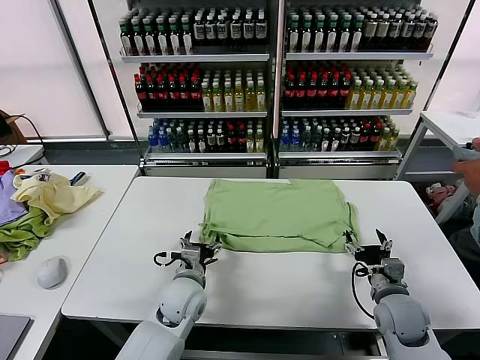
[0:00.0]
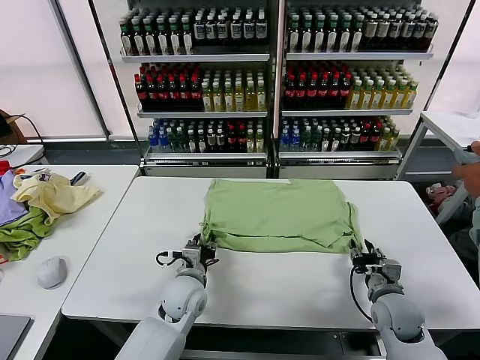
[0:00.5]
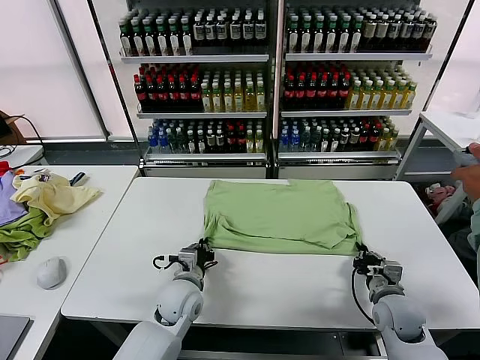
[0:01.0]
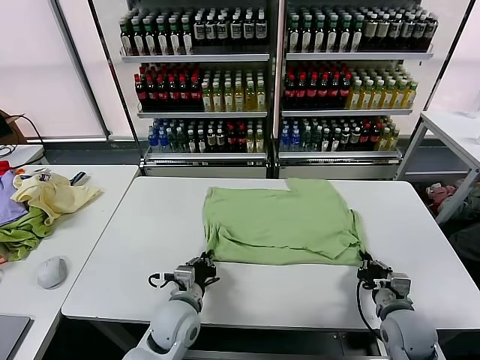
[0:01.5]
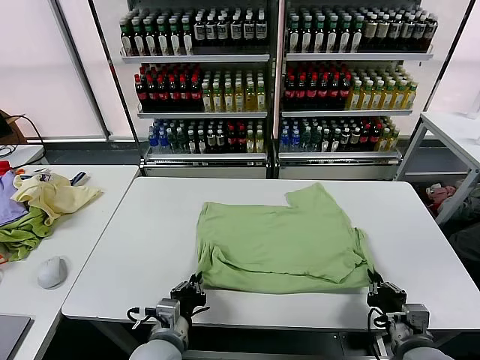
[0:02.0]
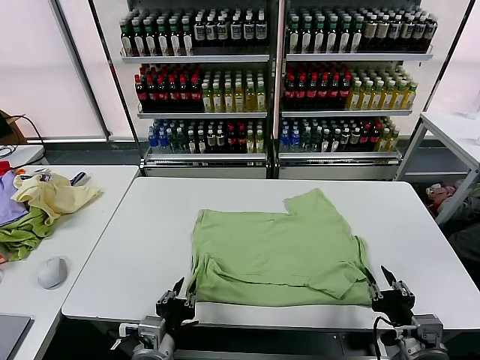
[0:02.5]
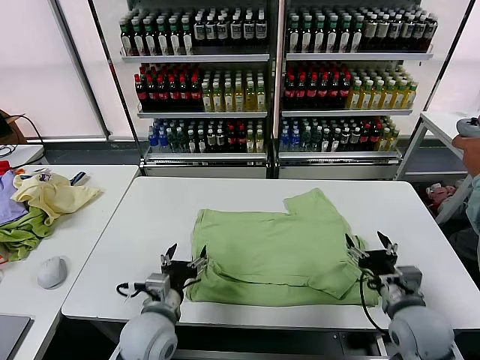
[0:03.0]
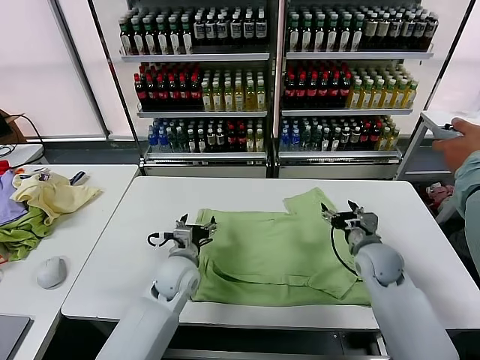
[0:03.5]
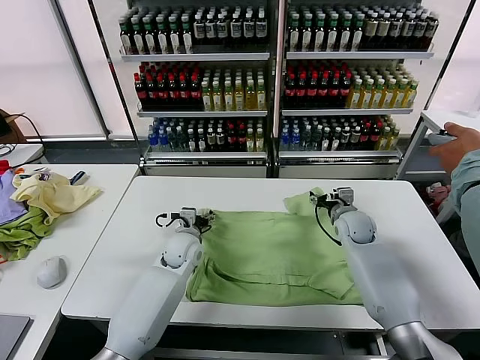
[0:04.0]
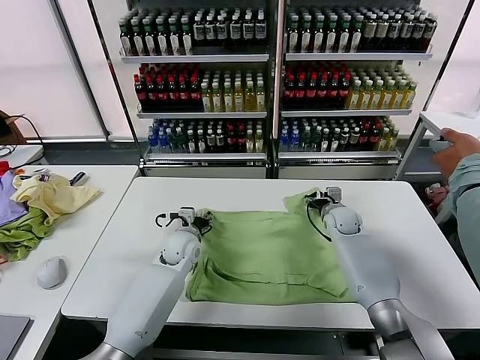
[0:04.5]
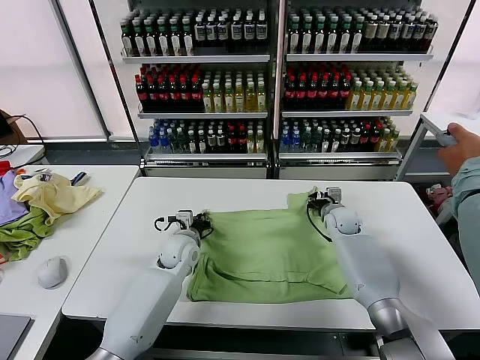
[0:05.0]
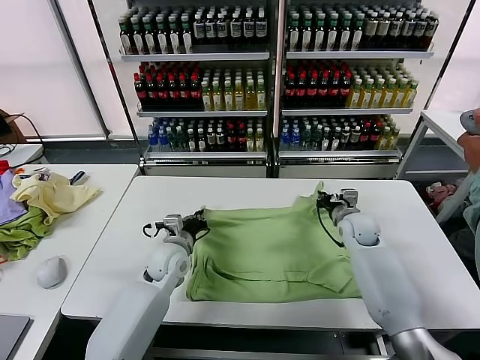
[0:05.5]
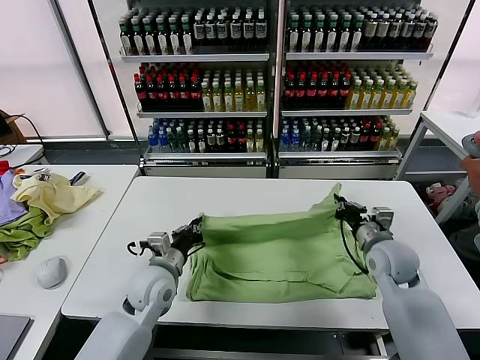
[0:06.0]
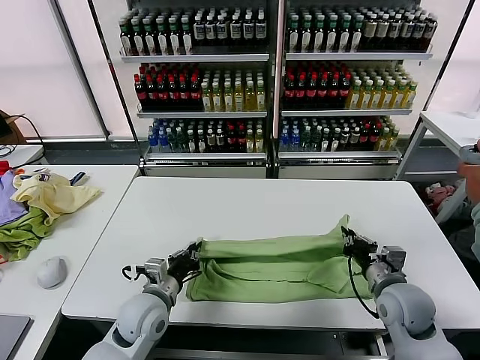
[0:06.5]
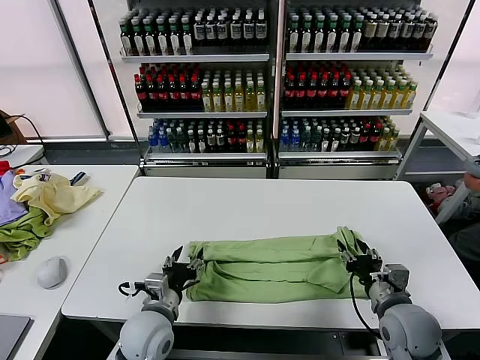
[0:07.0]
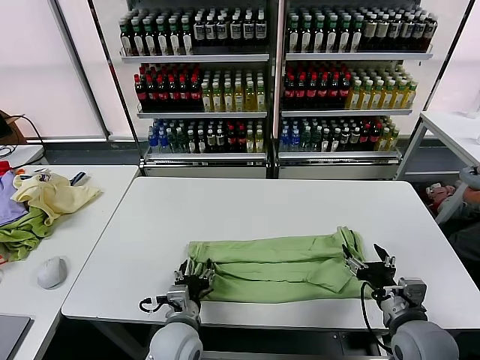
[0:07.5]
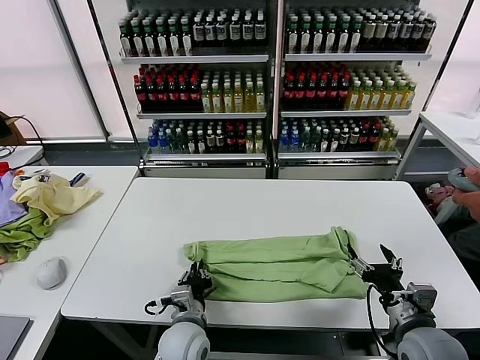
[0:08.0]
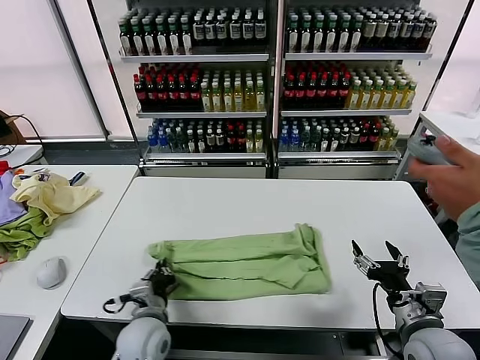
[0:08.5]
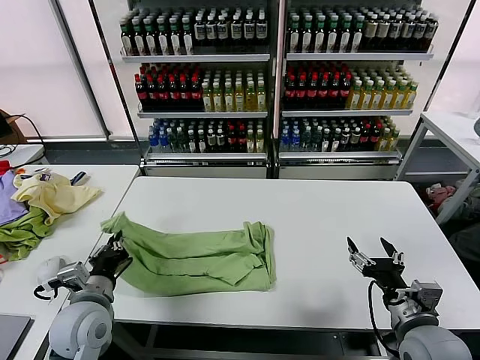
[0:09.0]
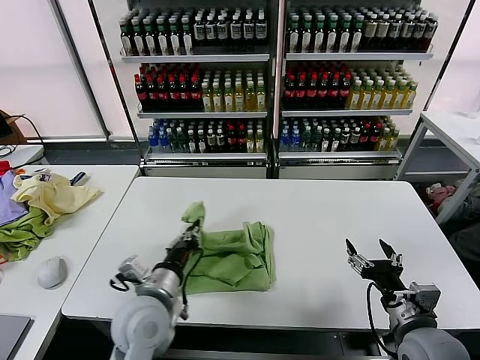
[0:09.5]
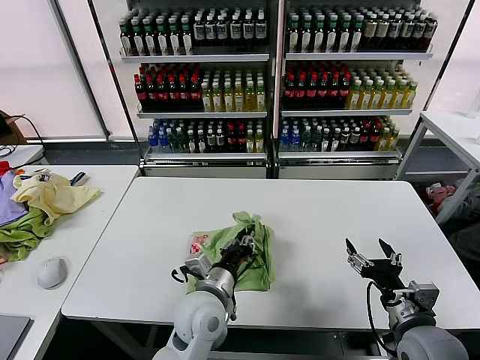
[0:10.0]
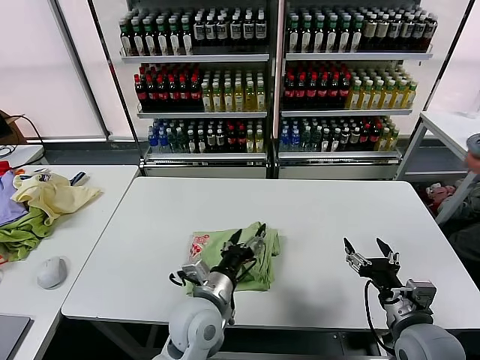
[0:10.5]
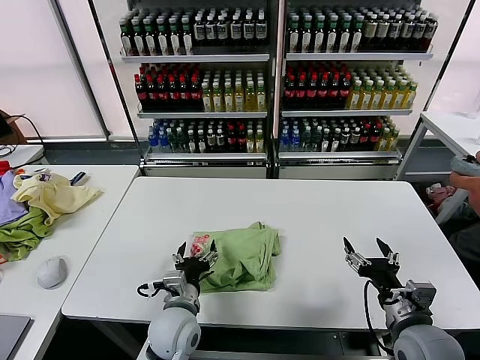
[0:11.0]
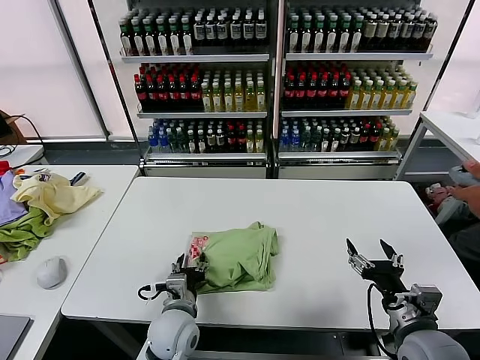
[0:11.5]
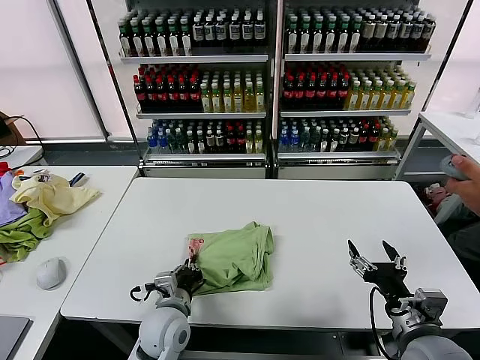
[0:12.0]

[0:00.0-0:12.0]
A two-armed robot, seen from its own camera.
Task of the whole recording: fold and organize the clothes.
Step, 0:00.0 to 0:02.5: Drag the clothes downward with both gripper.
Step, 0:03.0 to 0:05.0: use both grippers simultaneously to clamp the upper edge of the clothing fabric.
Step, 0:05.5 to 0:07.0: use both grippers to drag the upper edge of the fabric backward and fold it over the lower edge.
Step, 0:07.5 to 0:08.0: use the left gripper to clamp the left edge of the fabric.
Step, 0:08.5 to 0:10.0: use the left gripper to drag the left edge of the fabric to the left and folds it over the right edge.
0:00.0 to 0:02.0: The grippers both shift backward by approximately 15 cm. The left gripper closes its fingers; the right gripper closes its fingers.
0:02.0 to 0:04.0: The two grippers go roughly 30 cm forward. The right gripper opens up. Meanwhile the left gripper opens up.
0:04.0 to 0:06.0: Both grippers move backward, about 15 cm. The right gripper closes its fingers. The left gripper closes up.
0:06.0 to 0:08.0: The left gripper travels backward, to the right and downward by about 15 cm, and opens, then closes once more. Meanwhile the right gripper travels backward by roughly 15 cm, and opens up.
0:08.0 to 0:10.0: The left gripper shifts some 10 cm upward, and travels to the left and back again, about 20 cm each way.
0:10.0 to 0:12.0: The left gripper is displaced to the left and downward by approximately 10 cm, and opens, then closes once more.

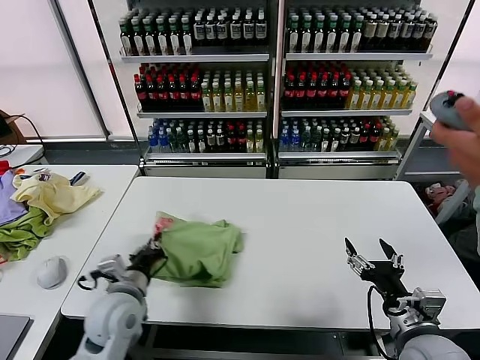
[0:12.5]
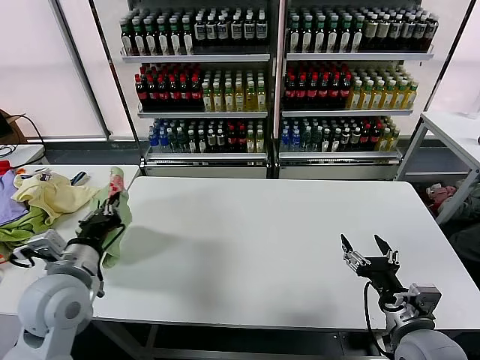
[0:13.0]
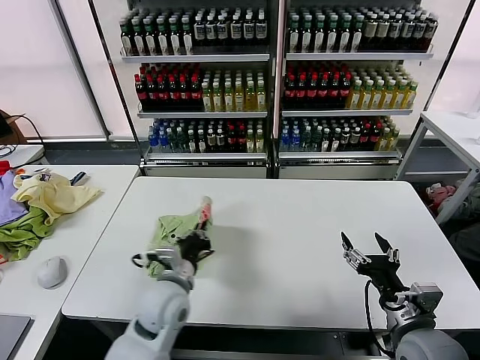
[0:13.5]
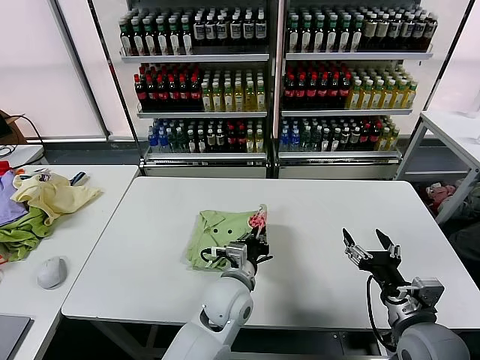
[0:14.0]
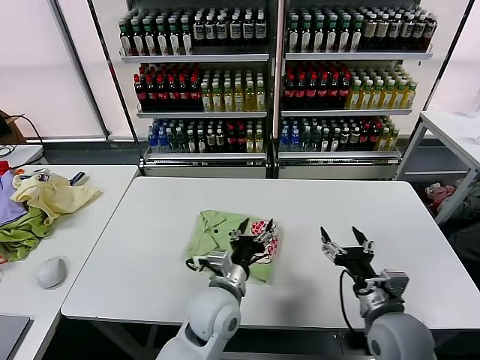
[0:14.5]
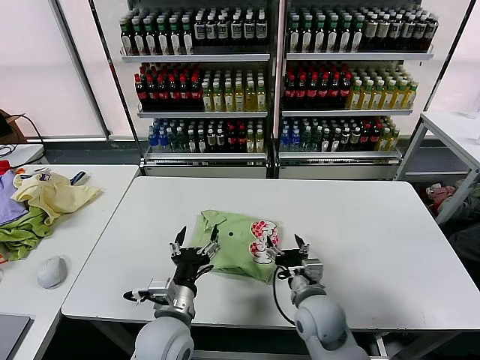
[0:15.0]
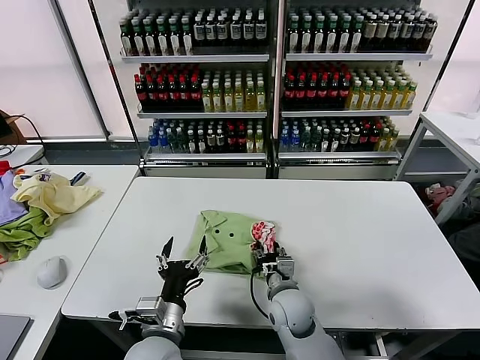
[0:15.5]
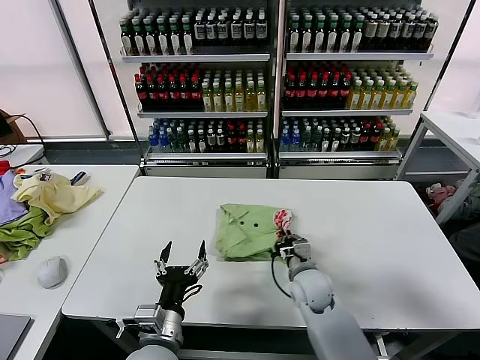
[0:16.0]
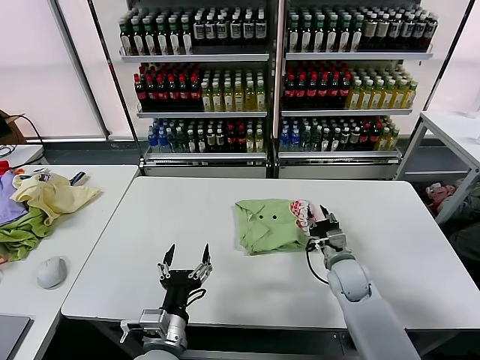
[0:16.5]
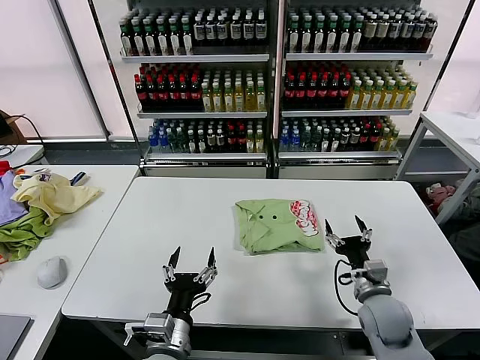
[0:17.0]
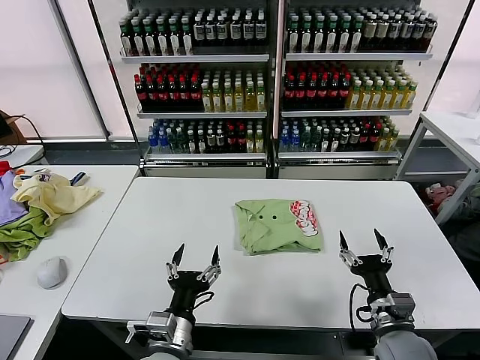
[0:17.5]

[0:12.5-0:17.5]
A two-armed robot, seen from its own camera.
Task of the whole recording: fold and organize the clothes.
Step, 0:14.5 to 0:16.5: Drag the clothes to the center of the table.
0:12.5 to 0:15.0: The right gripper shifts roughly 20 cm to the left, forward and downward. Meanwhile the left gripper moves left and right over approximately 25 cm, changing direction 2 times, and opens up.
0:15.0 to 0:17.5: The right gripper is displaced to the right and backward by approximately 15 cm, and closes and opens again. The left gripper heads backward, covering roughly 5 cm.
